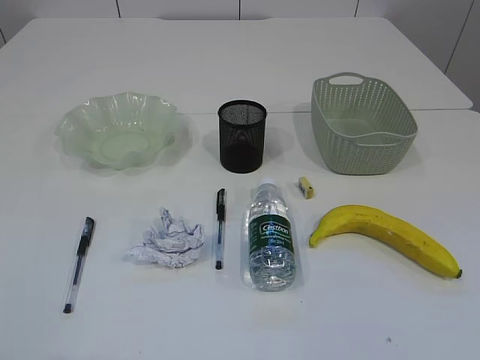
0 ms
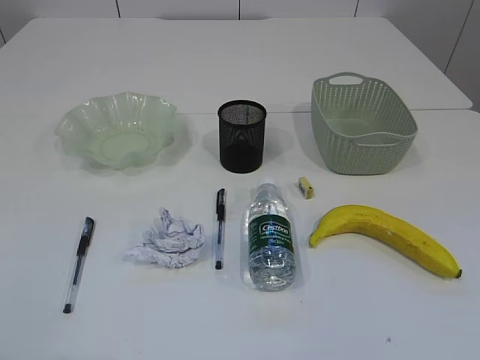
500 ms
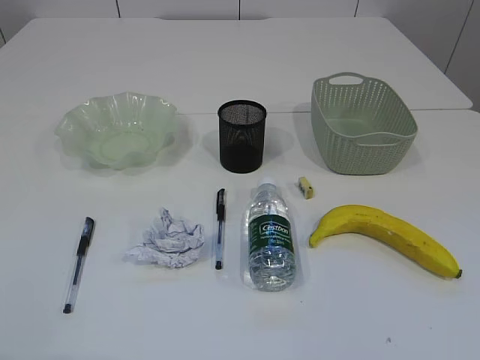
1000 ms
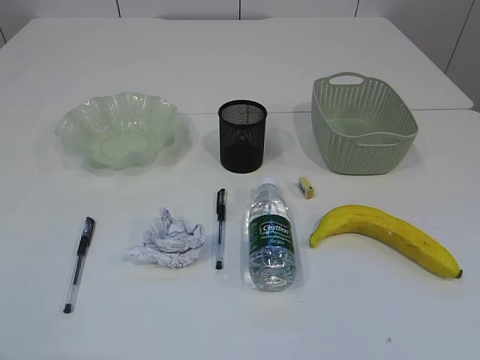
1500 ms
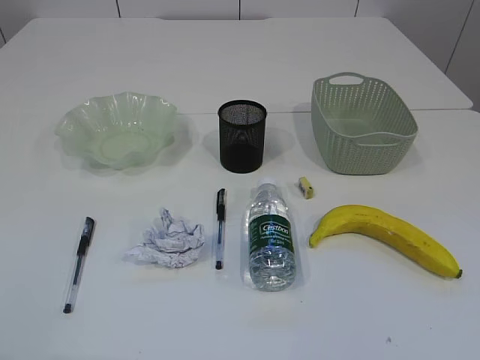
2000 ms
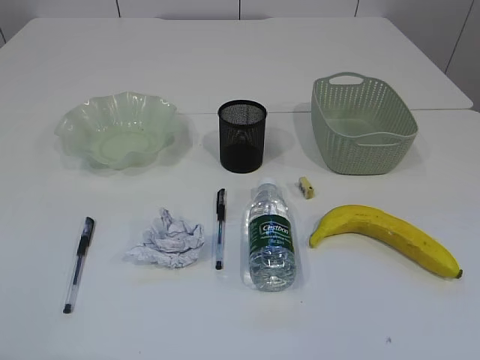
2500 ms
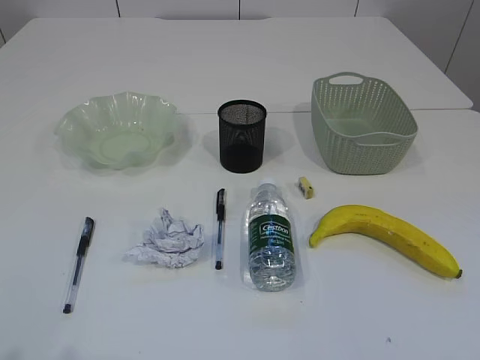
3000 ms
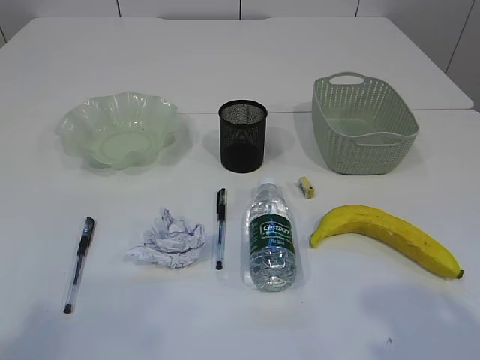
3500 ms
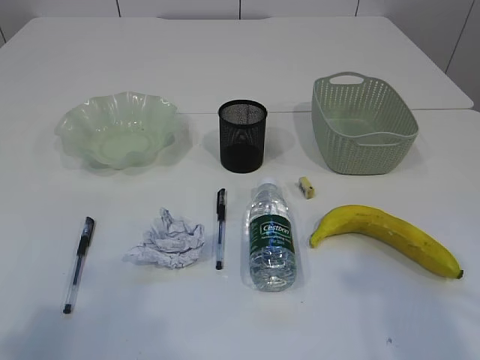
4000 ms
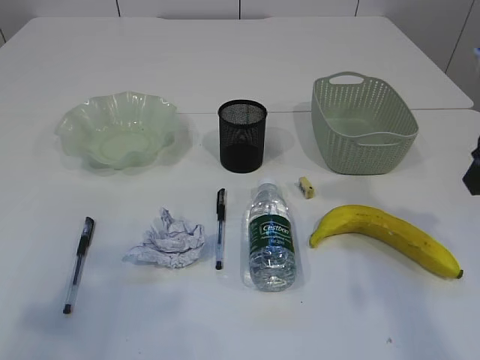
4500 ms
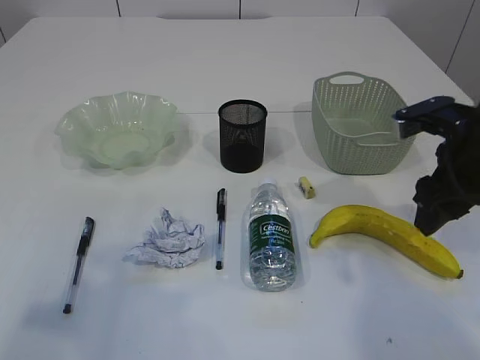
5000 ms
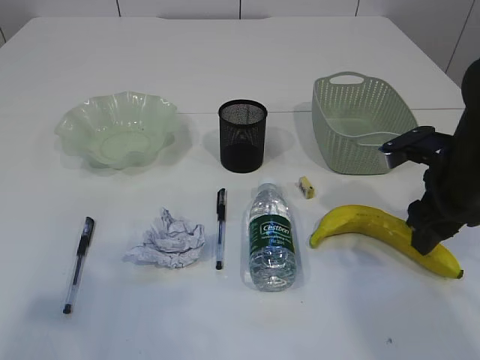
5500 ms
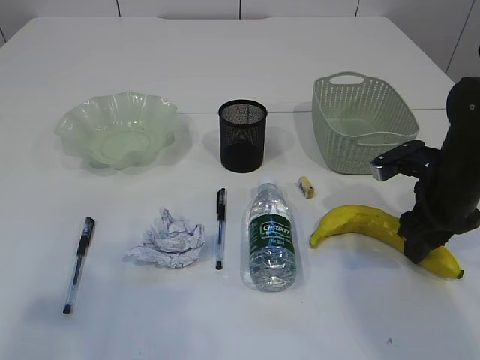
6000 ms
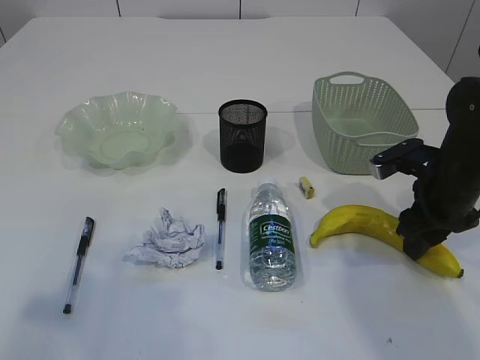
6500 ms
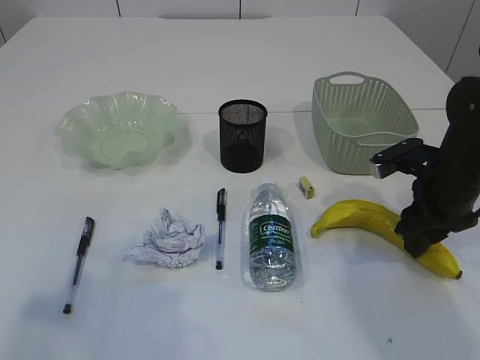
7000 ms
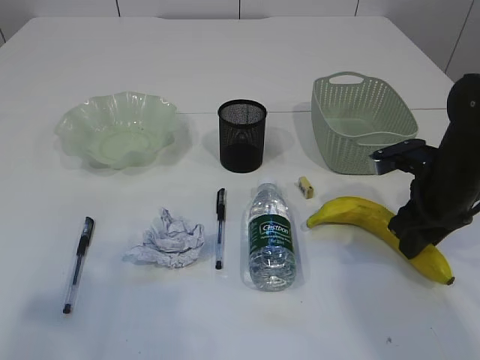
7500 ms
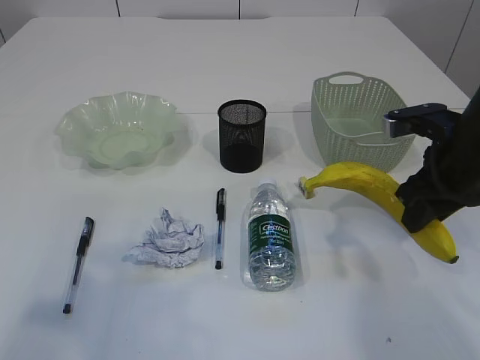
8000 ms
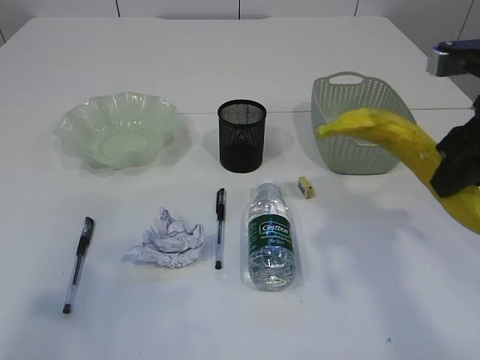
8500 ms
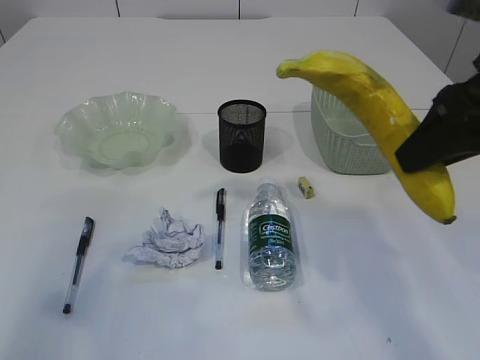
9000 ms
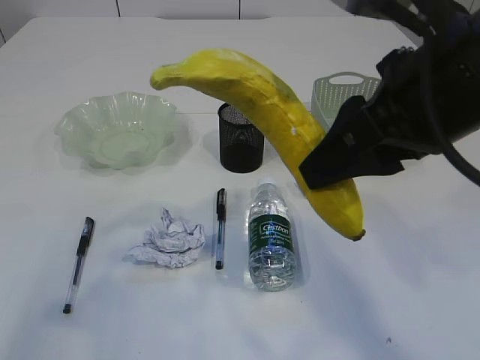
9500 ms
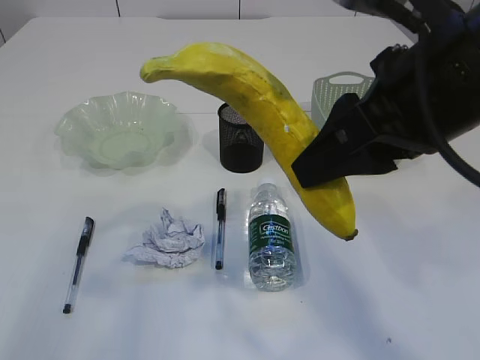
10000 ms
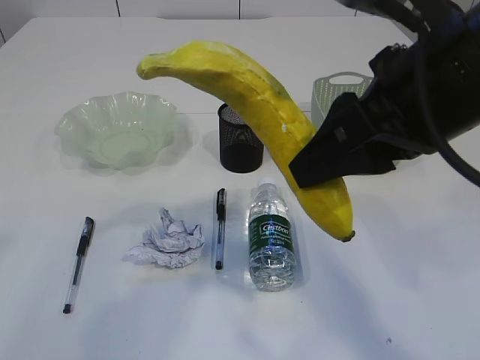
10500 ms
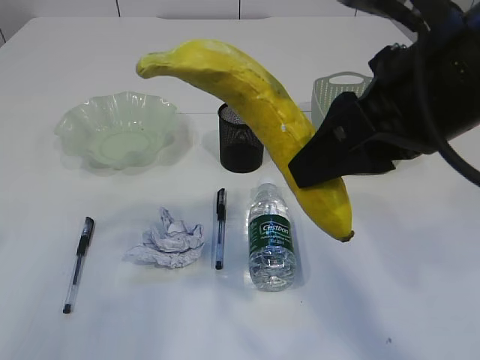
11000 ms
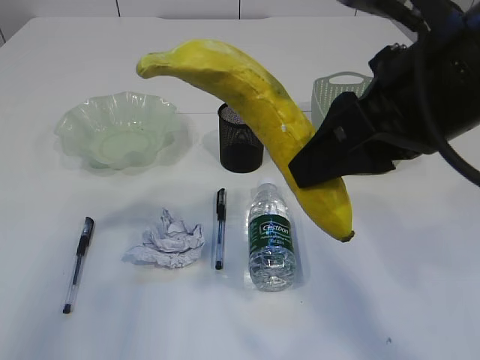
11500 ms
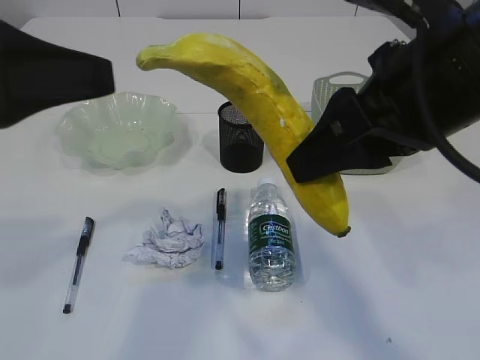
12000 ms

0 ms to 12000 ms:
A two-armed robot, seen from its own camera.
2000 ms to 4000 ms: The left gripper shifts roughly 10 cm forward; the right gripper moves forward, some 20 cm.
4000 ms to 6000 ms: The right gripper travels downward and forward by about 25 cm.
6000 ms to 8000 ms: The right gripper travels upward by roughly 5 cm.
8000 ms to 10000 ms: The right gripper goes roughly 20 cm upward, to the left and backward.
10000 ms to 12000 ms: The left gripper is displaced to the right and forward by some 10 cm.

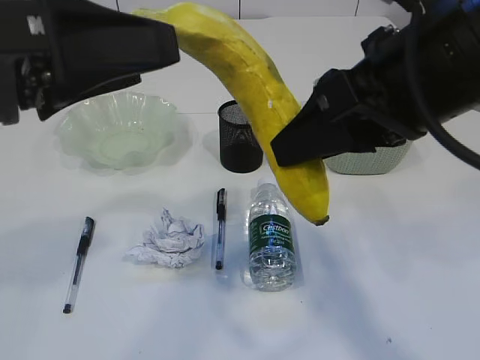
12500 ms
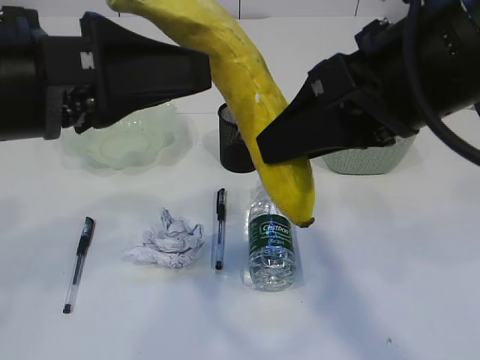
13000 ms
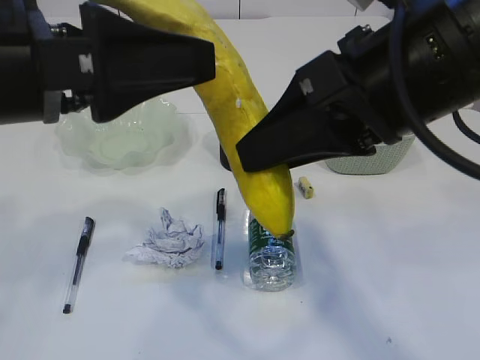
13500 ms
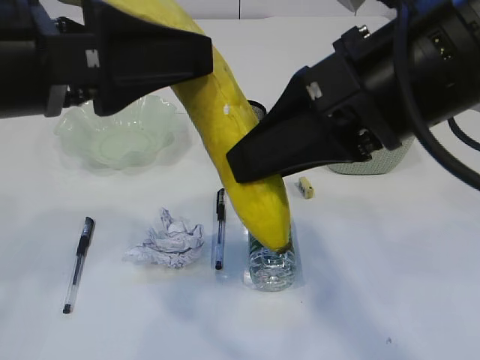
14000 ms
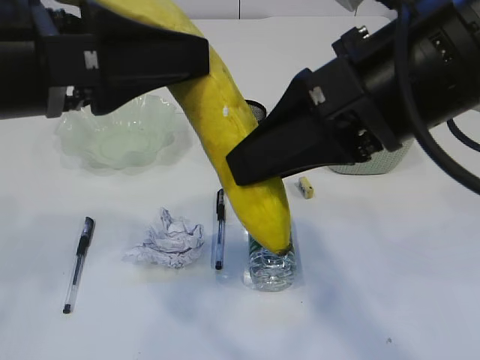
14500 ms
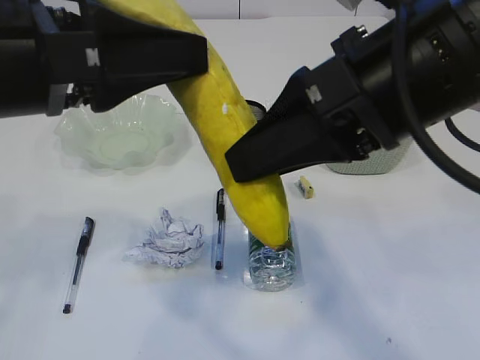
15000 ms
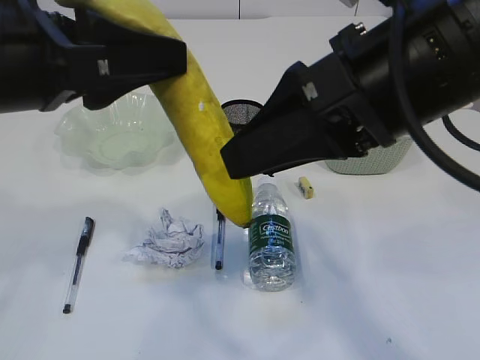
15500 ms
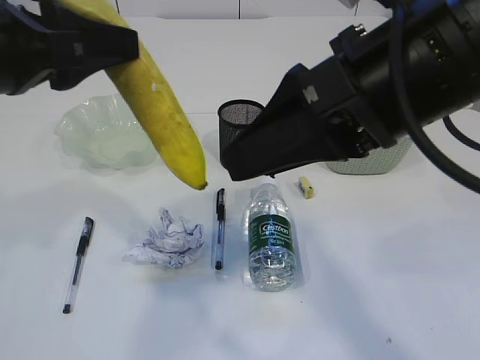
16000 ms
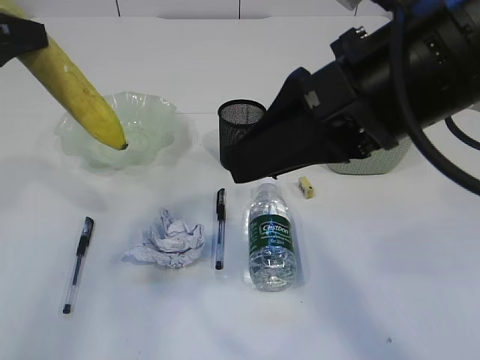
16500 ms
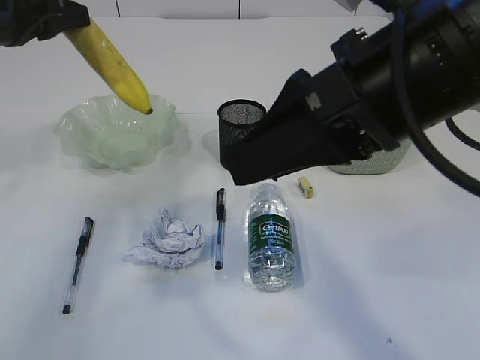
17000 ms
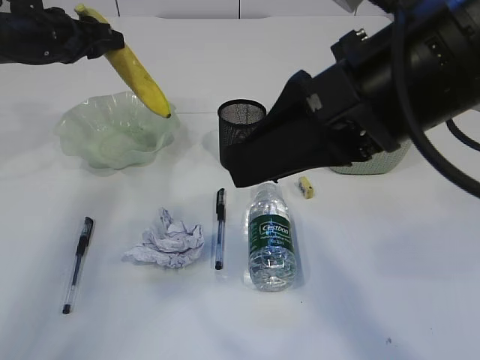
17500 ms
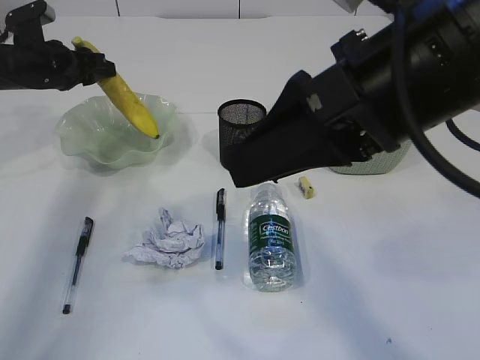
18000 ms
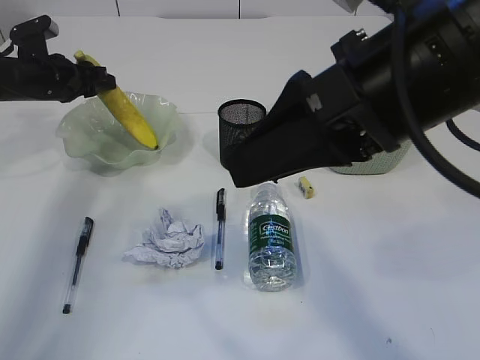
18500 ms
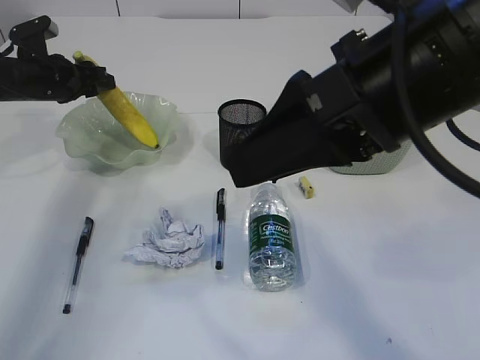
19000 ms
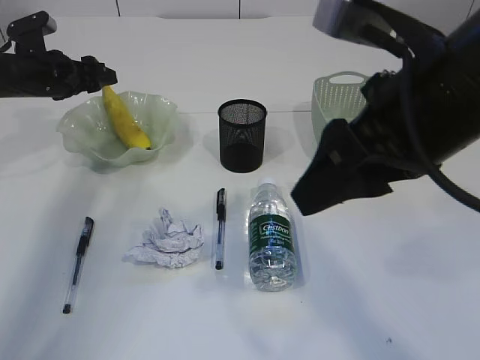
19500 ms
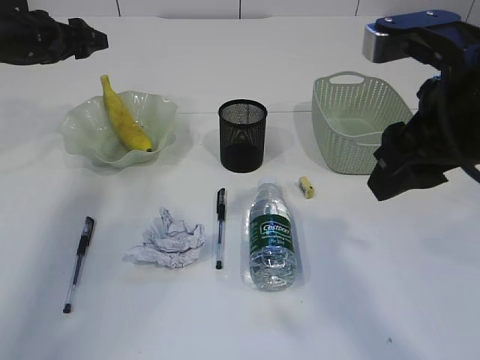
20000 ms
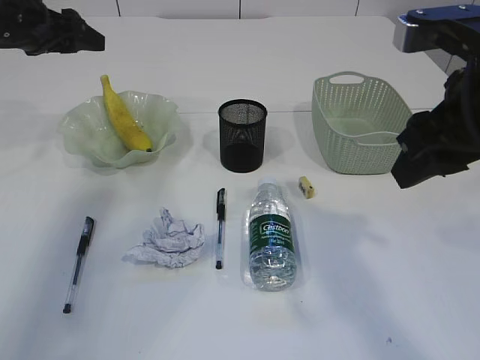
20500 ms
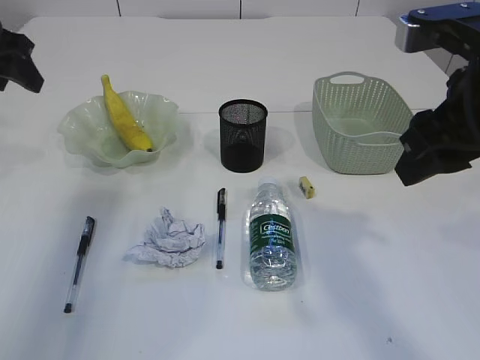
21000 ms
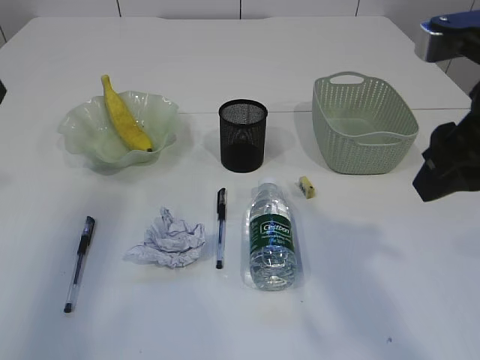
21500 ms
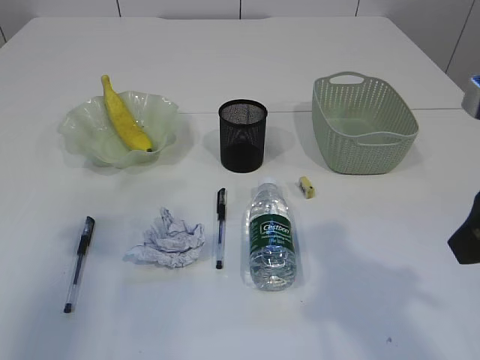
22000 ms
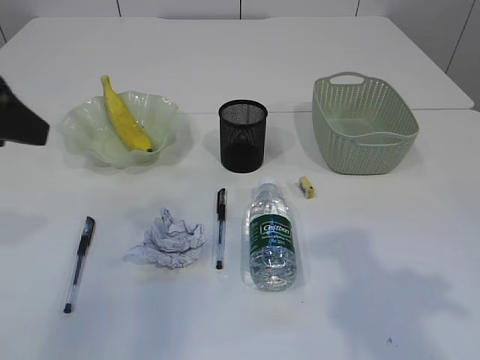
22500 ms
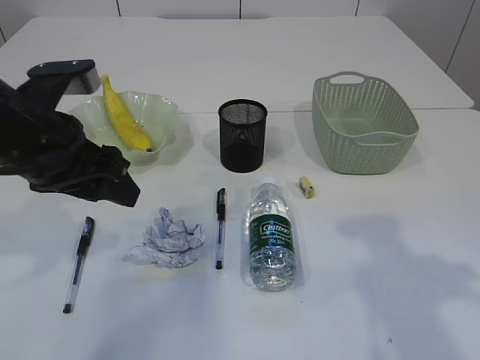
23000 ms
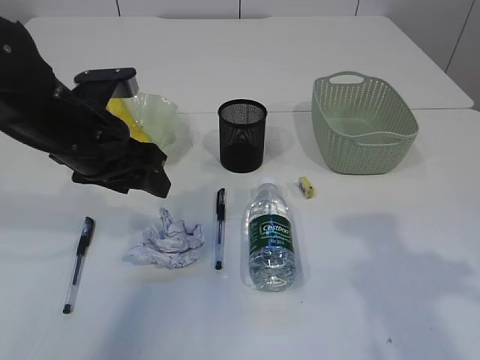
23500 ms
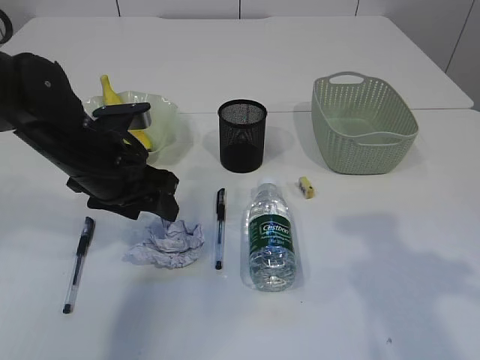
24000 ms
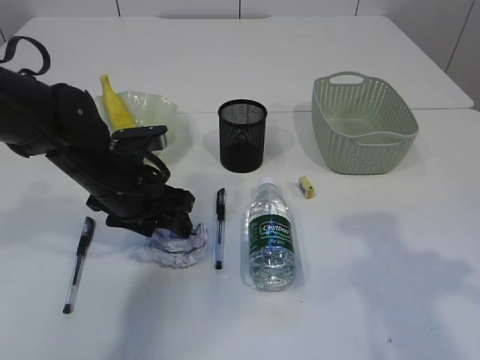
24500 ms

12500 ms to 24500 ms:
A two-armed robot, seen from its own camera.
Step, 12500 ms to 16000 ms: Hand over the banana.
Step, 16500 ms to 20000 ms: Place the banana in the plate.
12500 ms to 14500 ms: The left gripper closes up.
14500 ms to 16500 ms: The left gripper goes about 15 cm to the left and forward.
16500 ms to 18500 ms: The left gripper goes roughly 25 cm forward and downward.
18500 ms to 20500 ms: The left gripper goes some 10 cm upward; the right gripper shifts some 10 cm to the right.
20500 ms to 22500 ms: The right gripper heads backward, covering some 10 cm. The left gripper is displaced backward by roughly 20 cm.
22500 ms to 24500 ms: The left gripper heads downward, to the right and forward, covering roughly 25 cm.

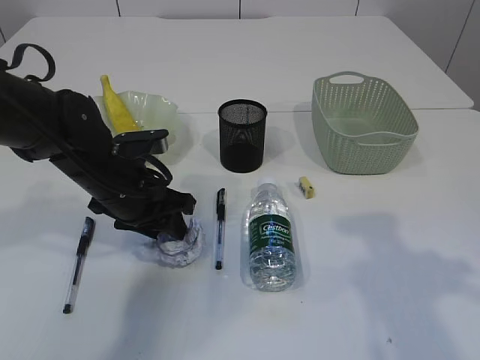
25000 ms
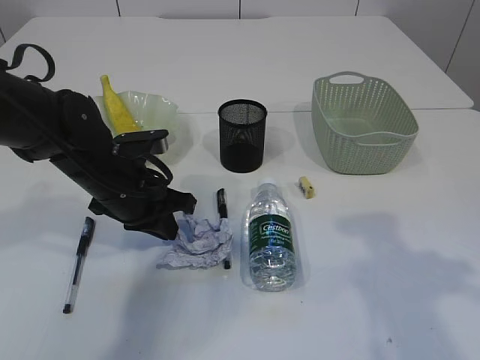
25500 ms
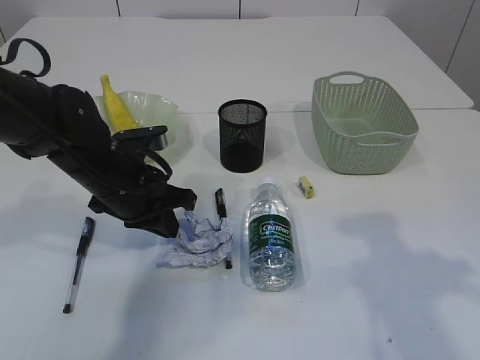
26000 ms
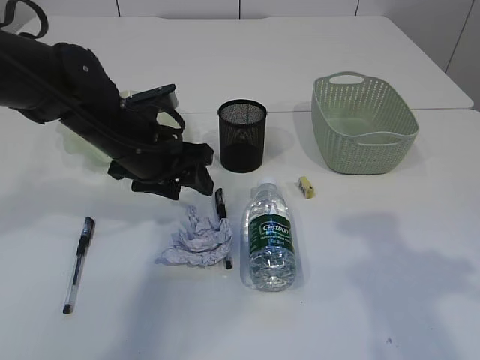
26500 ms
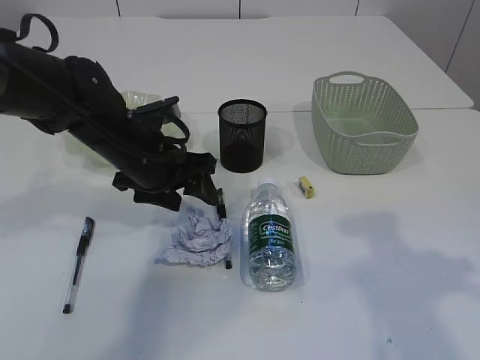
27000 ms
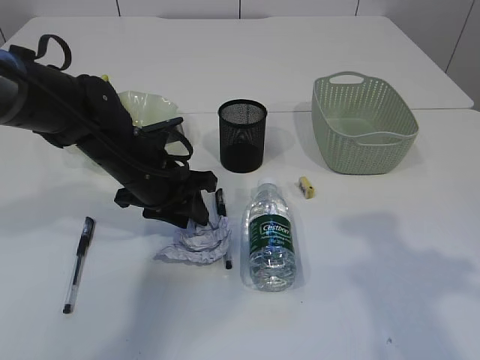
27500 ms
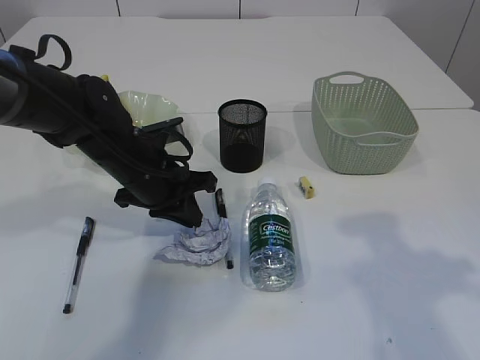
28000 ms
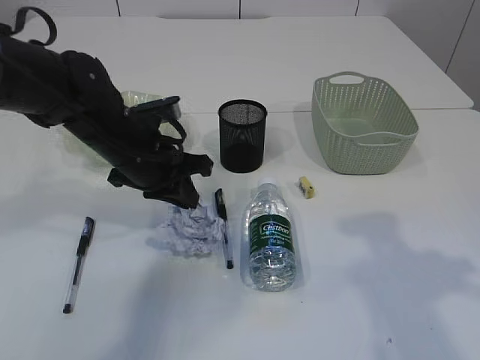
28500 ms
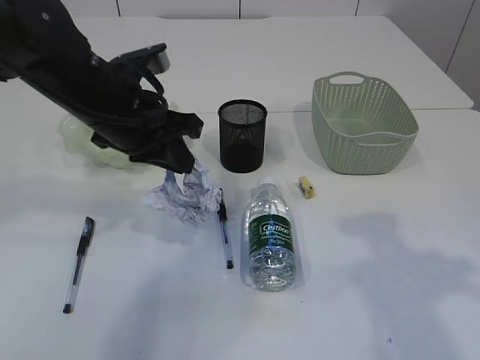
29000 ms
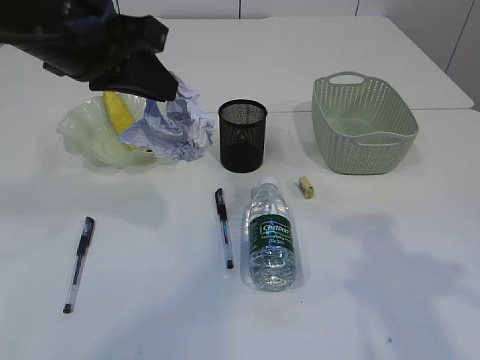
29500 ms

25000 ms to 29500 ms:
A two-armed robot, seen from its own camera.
Step, 25000 ms to 29000 ms: Pick up the waste paper.
25000 ms to 27000 ms: The left gripper closes, then opens again.
27000 ms to 29500 ms: The left gripper travels upward by approximately 15 cm, and closes.
